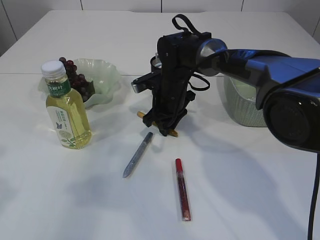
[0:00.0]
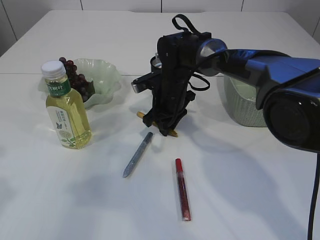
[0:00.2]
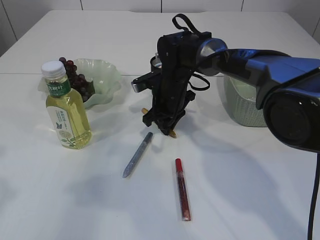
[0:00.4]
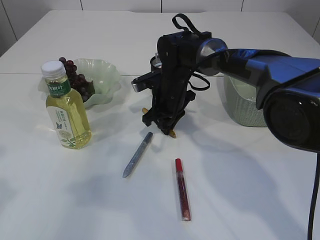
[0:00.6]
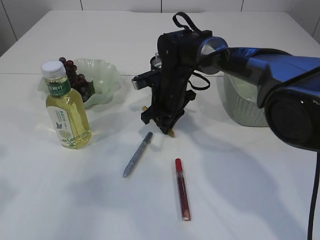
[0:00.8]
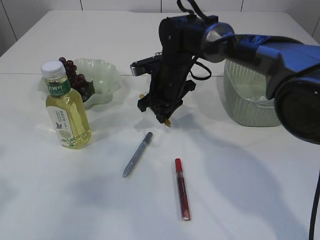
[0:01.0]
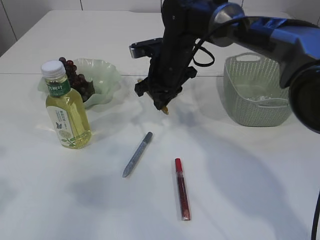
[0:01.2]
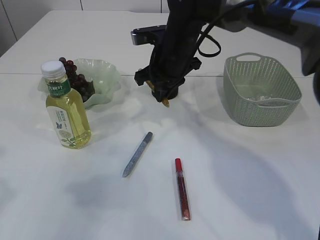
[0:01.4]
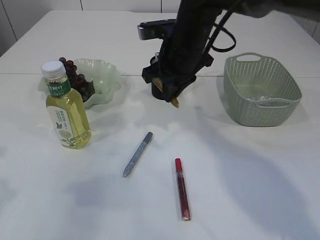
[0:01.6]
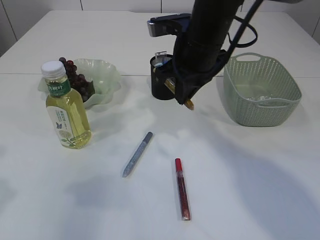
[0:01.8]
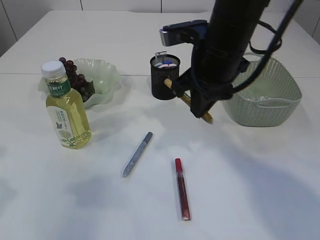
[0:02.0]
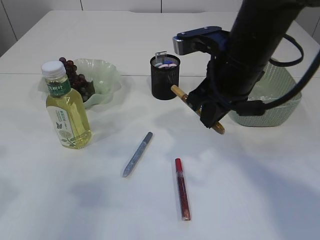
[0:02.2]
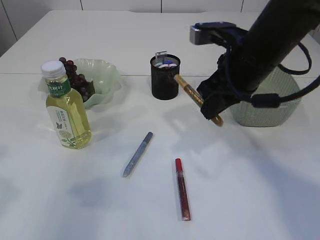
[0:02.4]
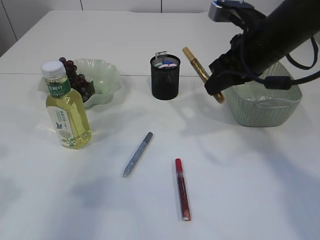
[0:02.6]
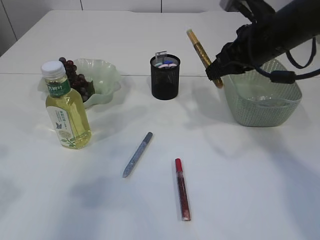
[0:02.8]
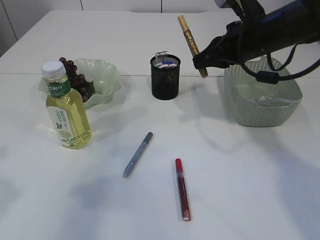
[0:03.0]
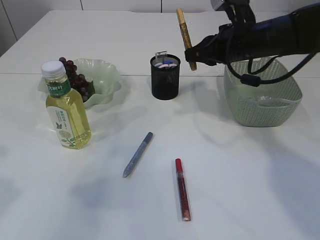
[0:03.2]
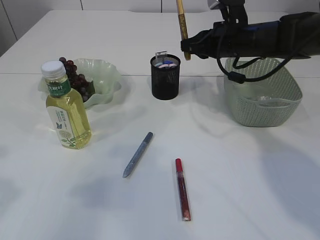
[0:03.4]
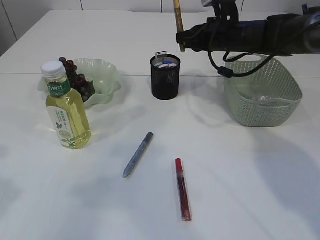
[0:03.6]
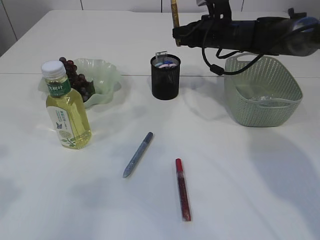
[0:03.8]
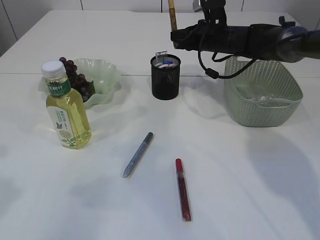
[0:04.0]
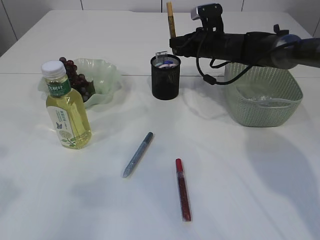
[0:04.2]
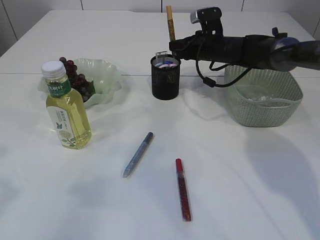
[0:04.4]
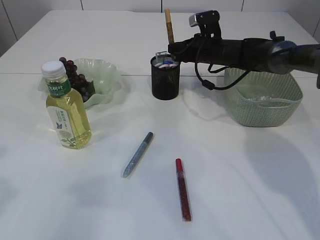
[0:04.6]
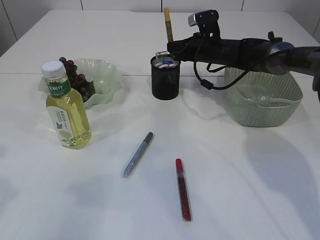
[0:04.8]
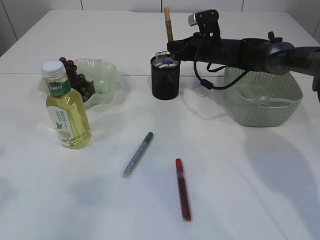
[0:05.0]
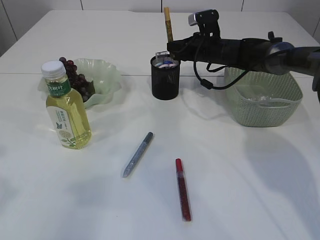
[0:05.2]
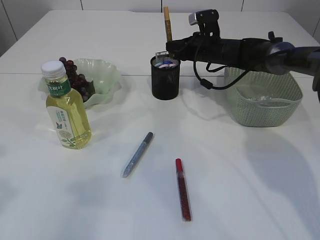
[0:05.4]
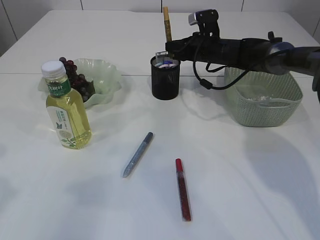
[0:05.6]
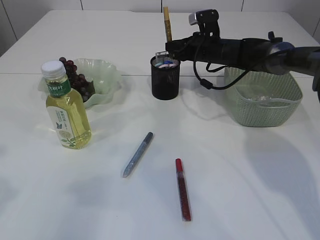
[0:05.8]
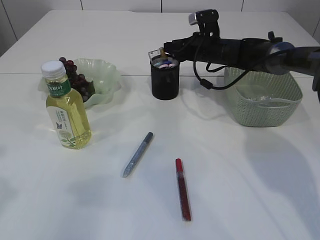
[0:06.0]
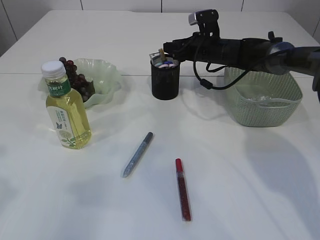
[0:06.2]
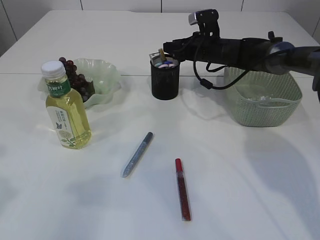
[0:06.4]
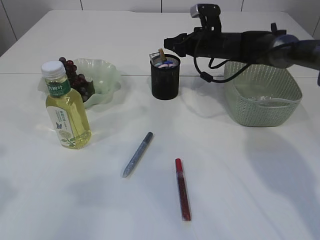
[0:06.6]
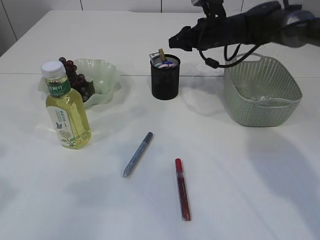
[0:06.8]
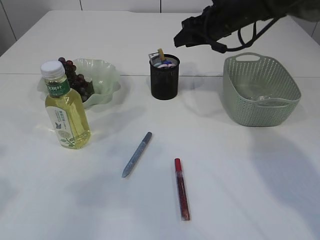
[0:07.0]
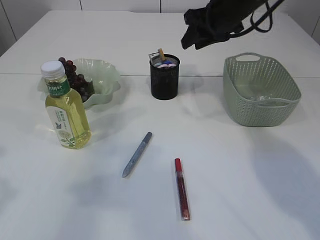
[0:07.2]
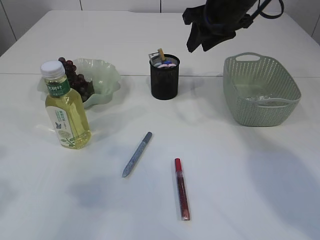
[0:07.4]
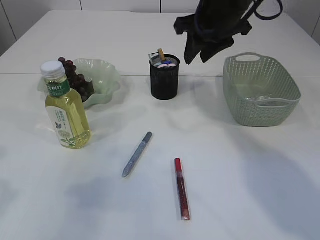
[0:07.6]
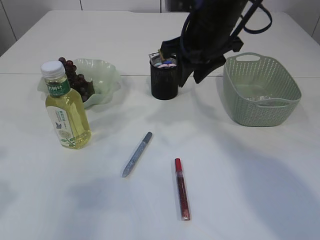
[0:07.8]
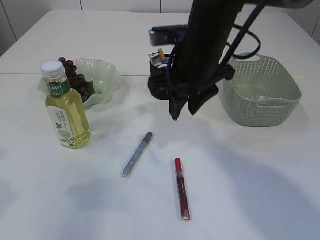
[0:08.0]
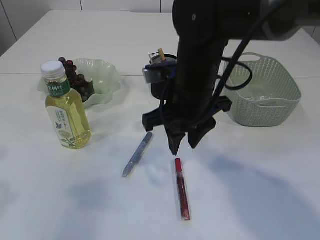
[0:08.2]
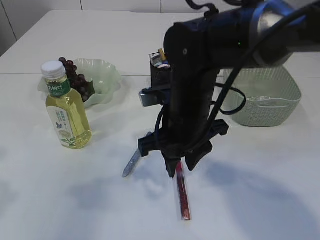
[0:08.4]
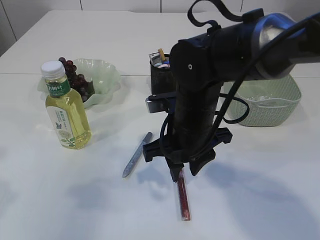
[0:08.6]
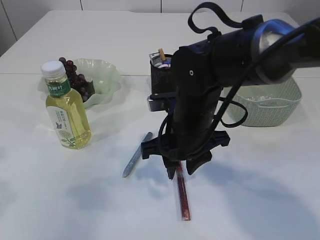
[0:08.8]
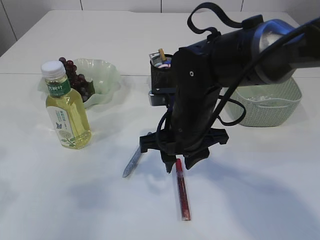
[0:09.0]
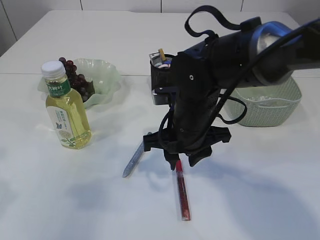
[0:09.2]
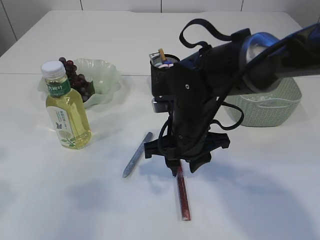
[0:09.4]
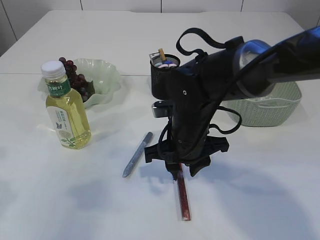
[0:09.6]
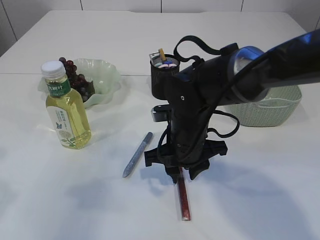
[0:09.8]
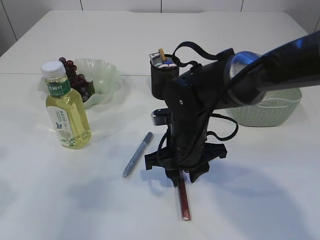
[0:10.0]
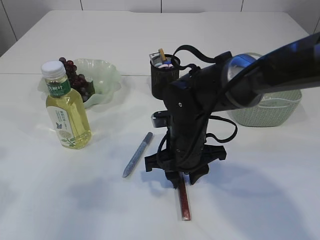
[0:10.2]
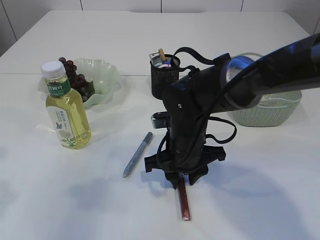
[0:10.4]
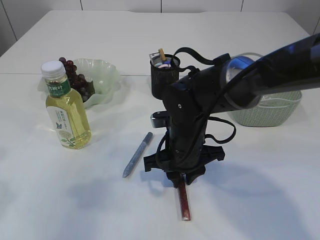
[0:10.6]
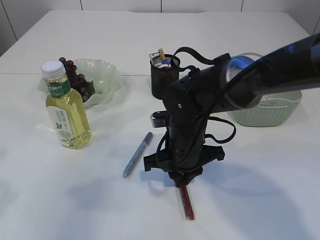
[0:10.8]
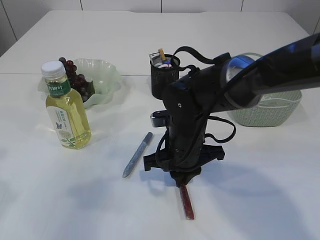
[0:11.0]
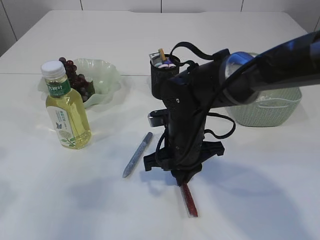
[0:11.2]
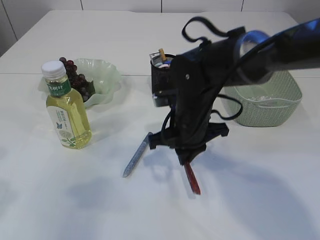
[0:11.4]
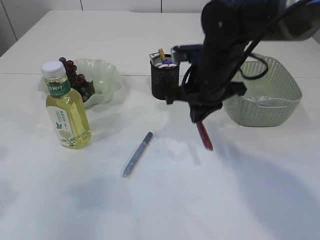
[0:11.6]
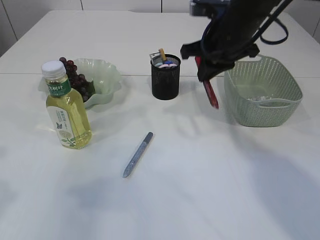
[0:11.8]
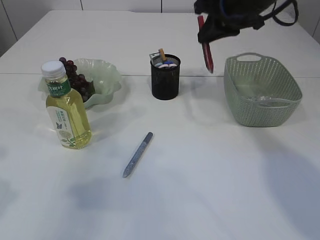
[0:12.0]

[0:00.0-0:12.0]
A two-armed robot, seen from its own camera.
Step, 0:01.4 to 0:06.6: place the yellow glue into the pen holder.
Step, 0:06.8 to 0:11.4: pick up the red glue.
0:00.0 to 0:01.6: The right gripper moves upward, some 10 cm.
0:01.6 to 0:03.0: The right gripper moves to the right, roughly 10 cm.
0:03.0 to 0:04.4: The right gripper travels forward and downward by about 20 cm.
0:04.4 to 0:06.0: The right gripper opens up.
0:06.0 to 0:07.6: The right gripper shifts some 20 cm upward and backward.
0:07.6 to 0:09.0: The right gripper shifts approximately 20 cm downward, backward and to the left.
0:09.0 to 0:10.4: The right gripper is displaced downward by roughly 5 cm.
0:10.4 to 0:12.0: The right gripper goes about 25 cm upward, to the right and forward, and closes up.

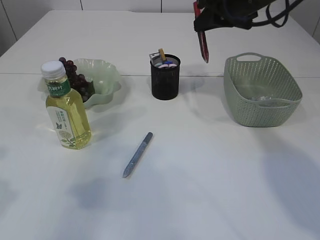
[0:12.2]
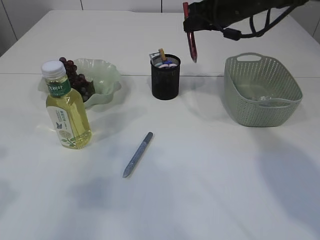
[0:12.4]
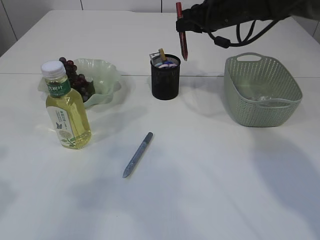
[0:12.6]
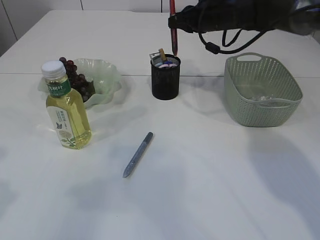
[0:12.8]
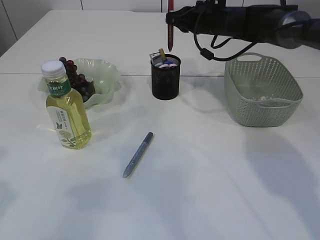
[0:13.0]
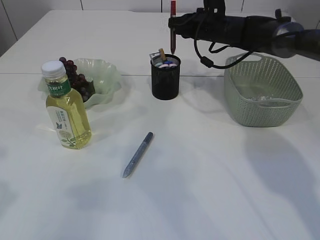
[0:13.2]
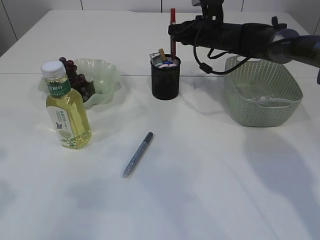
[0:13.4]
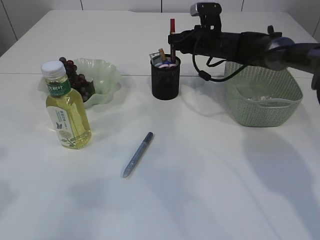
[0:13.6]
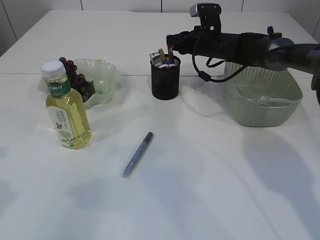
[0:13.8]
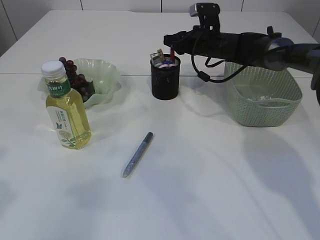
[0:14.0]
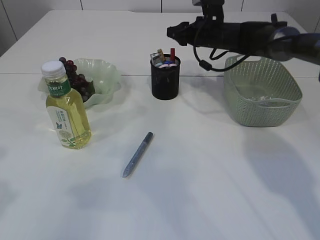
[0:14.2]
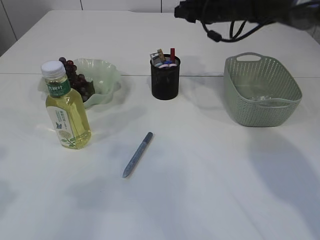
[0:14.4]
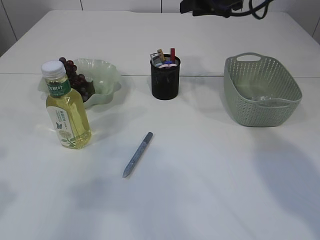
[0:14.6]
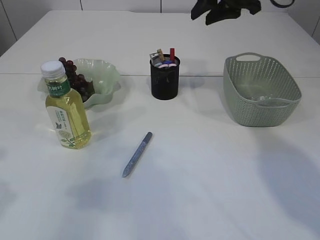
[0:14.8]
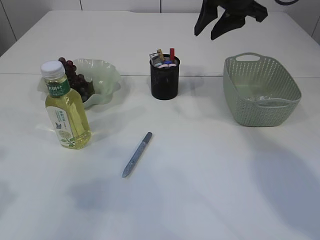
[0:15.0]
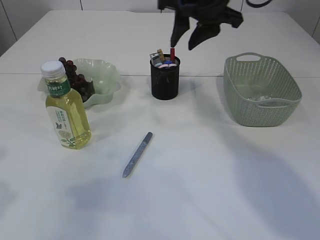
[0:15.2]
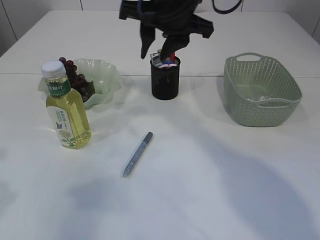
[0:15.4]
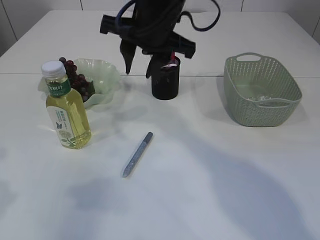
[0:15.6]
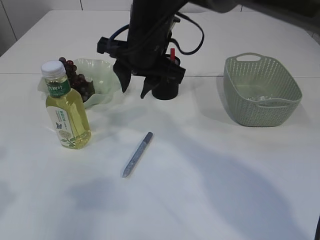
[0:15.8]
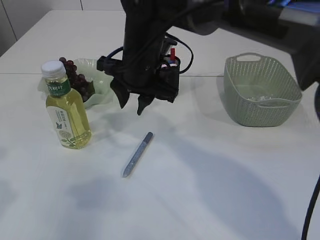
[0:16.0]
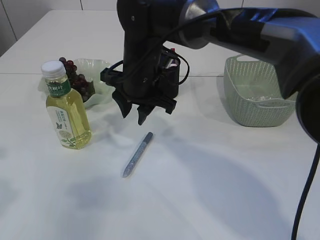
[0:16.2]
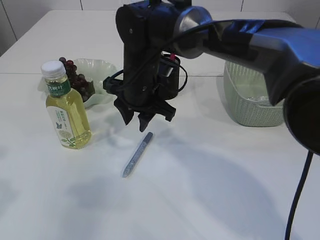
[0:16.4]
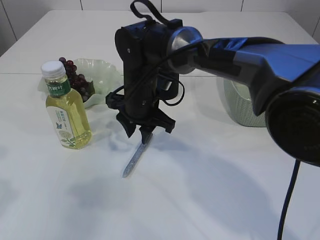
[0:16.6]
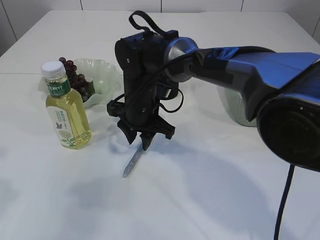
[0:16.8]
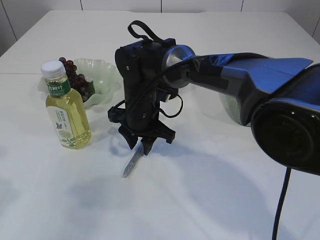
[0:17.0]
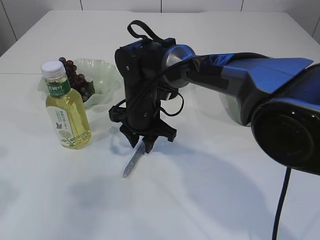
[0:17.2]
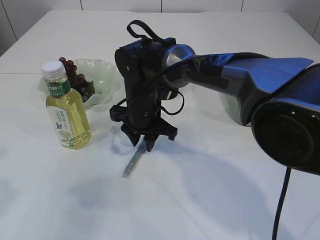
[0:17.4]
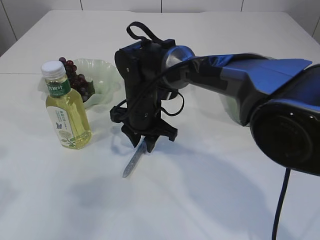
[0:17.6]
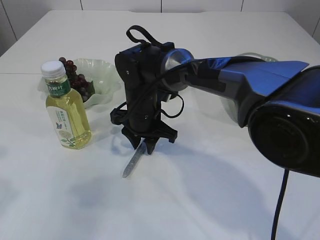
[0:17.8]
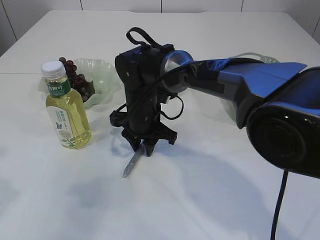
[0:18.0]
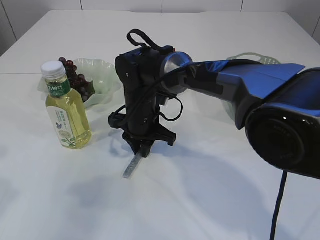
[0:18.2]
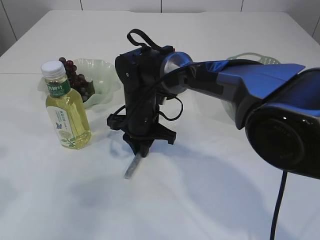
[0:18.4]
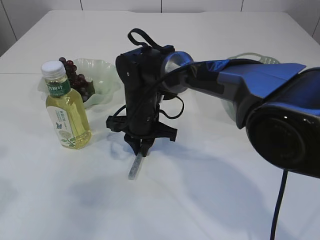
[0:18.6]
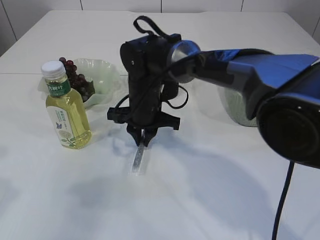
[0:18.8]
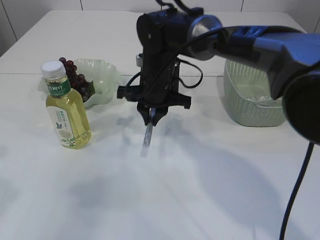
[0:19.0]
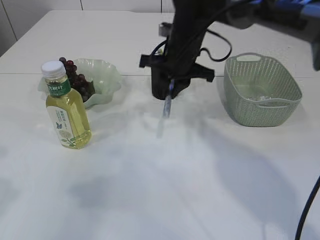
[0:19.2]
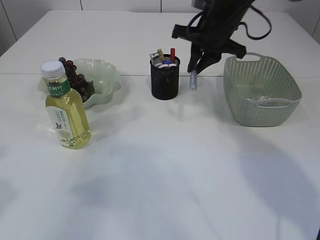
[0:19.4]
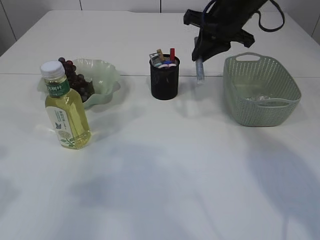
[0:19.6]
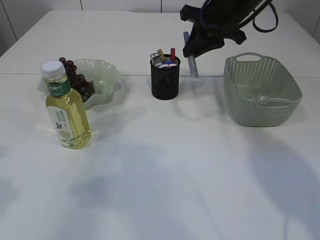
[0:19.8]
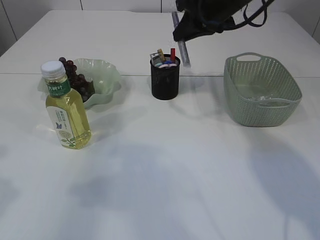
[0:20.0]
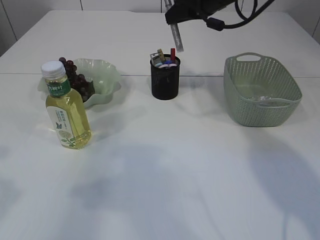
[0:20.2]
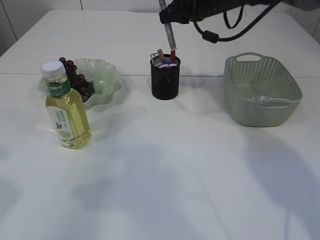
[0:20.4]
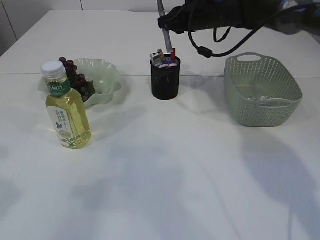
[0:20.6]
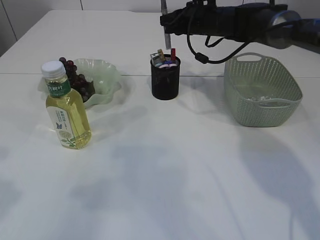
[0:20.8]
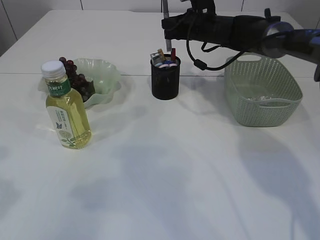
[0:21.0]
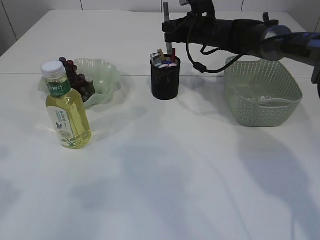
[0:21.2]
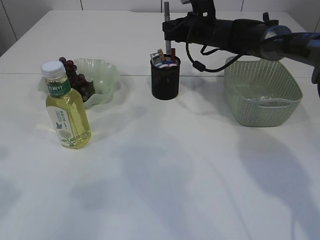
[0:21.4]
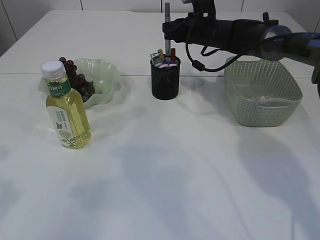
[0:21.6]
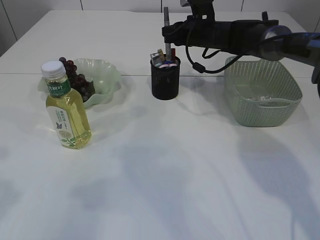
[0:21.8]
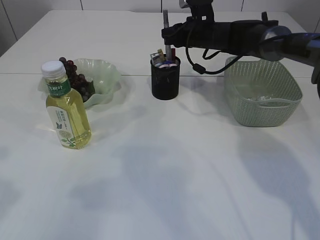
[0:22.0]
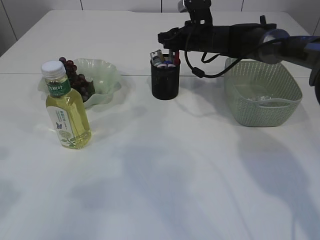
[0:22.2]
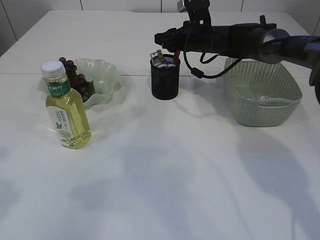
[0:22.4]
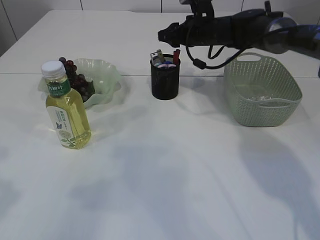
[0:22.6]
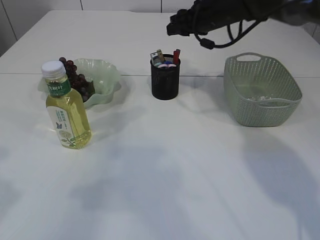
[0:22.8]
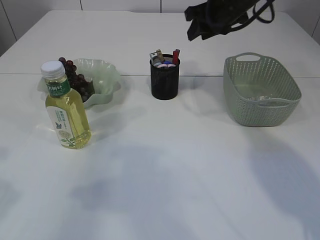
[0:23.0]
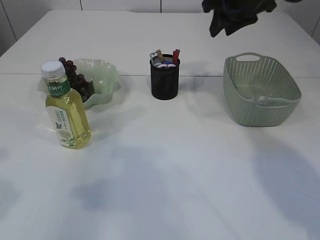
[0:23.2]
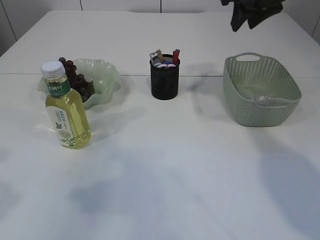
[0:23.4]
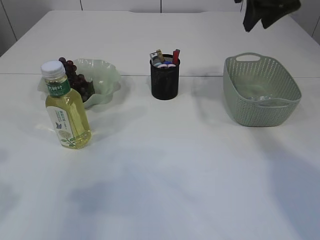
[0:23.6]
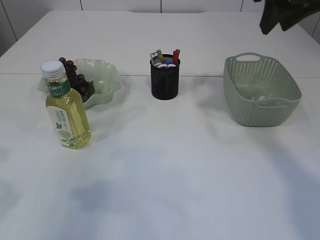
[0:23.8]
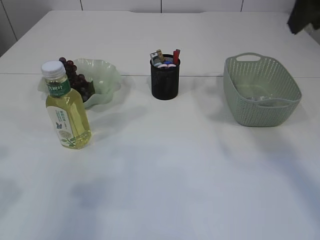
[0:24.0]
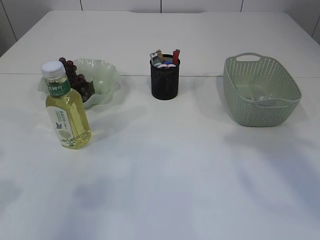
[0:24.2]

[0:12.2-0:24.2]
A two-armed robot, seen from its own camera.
Step, 0:12.2 to 0:14.6: place the red glue into the pen holder.
Step, 0:14.8 to 0:19.0: pick up the silver glue.
Step, 0:19.2 to 0:22.6: place the silver glue into the pen holder.
0:12.2 to 0:13.8: The right gripper goes approximately 15 cm downward and forward.
0:13.8 to 0:15.2: The right gripper heads upward and backward, covering about 20 cm.
0:15.2 to 0:16.6: The right gripper heads downward and to the left, covering approximately 20 cm.
0:18.2 to 0:19.8: The right gripper is displaced to the right and upward by roughly 25 cm.
0:19.8 to 0:21.2: The right gripper heads forward and downward, covering some 15 cm.
0:21.2 to 0:22.6: The right gripper opens.
0:22.6 to 0:24.2: The left gripper opens; the right gripper is displaced backward and upward by about 35 cm.
